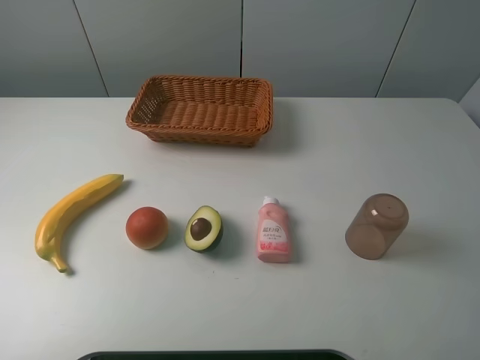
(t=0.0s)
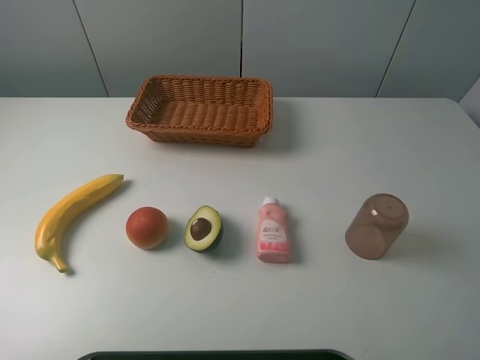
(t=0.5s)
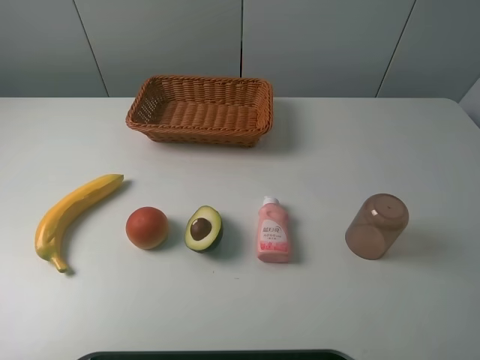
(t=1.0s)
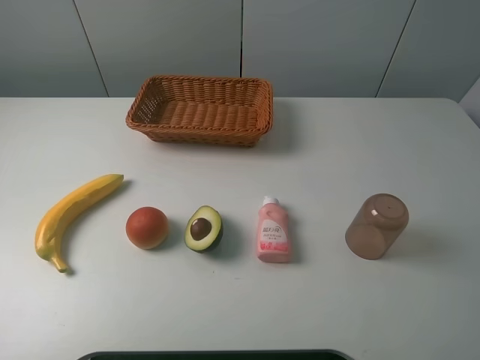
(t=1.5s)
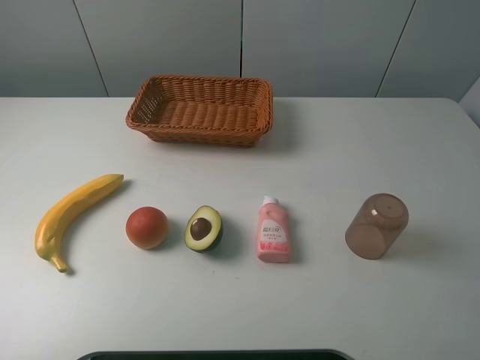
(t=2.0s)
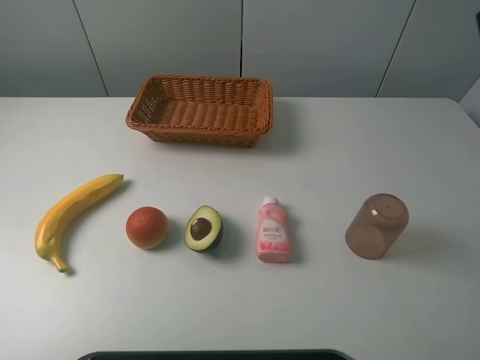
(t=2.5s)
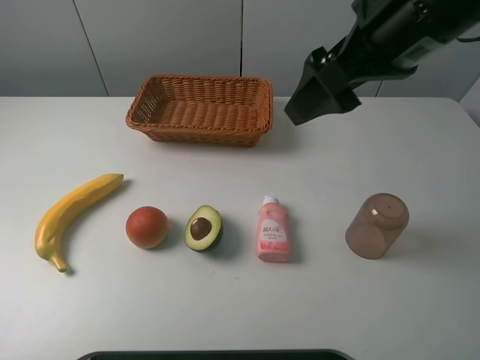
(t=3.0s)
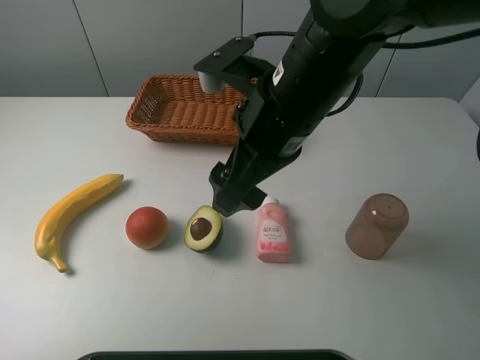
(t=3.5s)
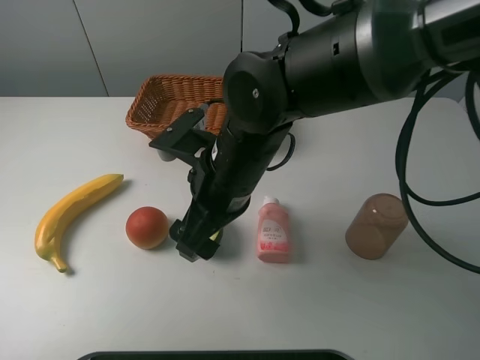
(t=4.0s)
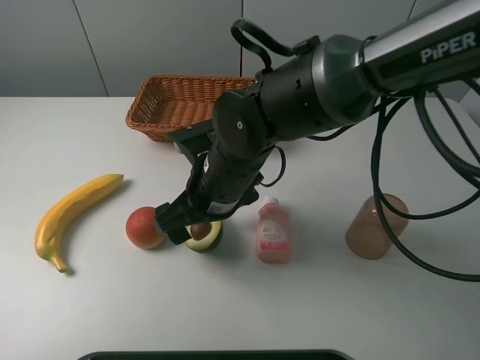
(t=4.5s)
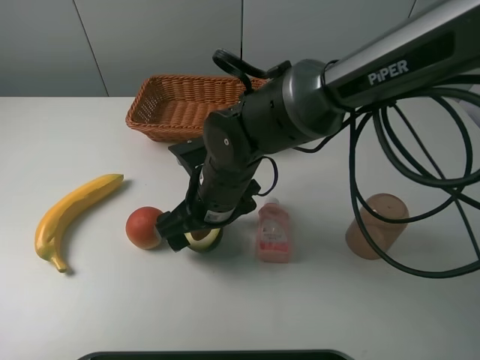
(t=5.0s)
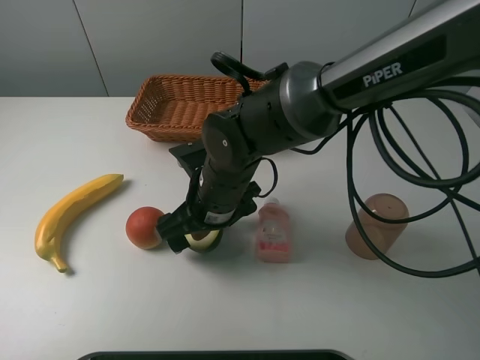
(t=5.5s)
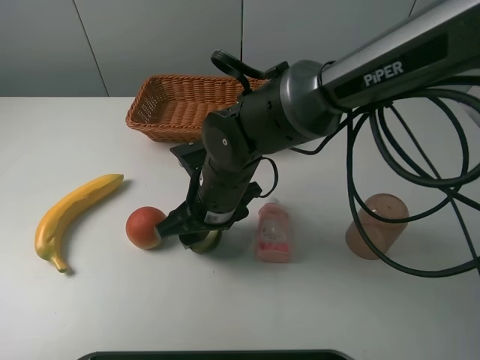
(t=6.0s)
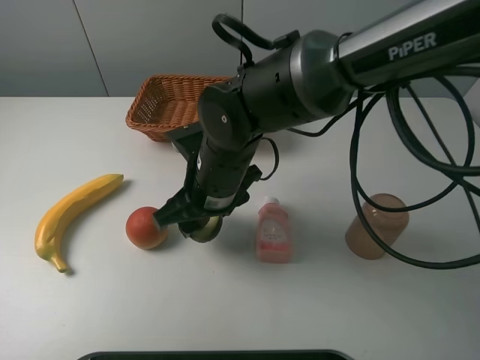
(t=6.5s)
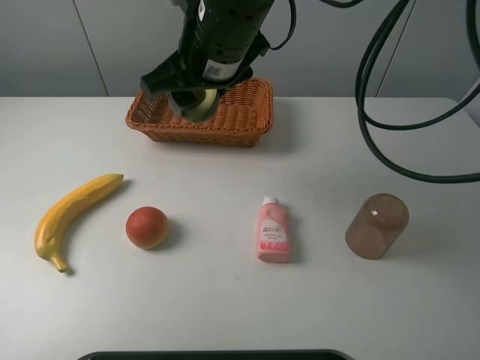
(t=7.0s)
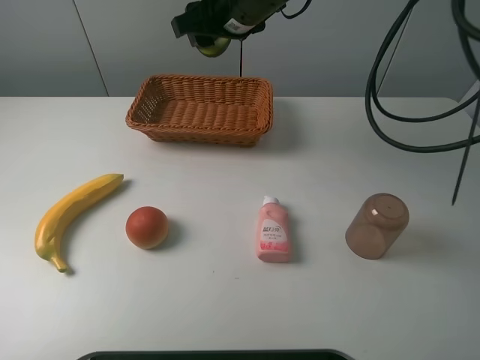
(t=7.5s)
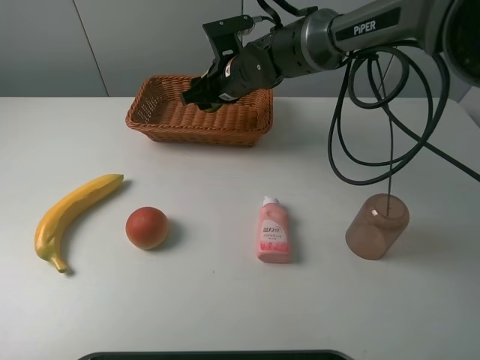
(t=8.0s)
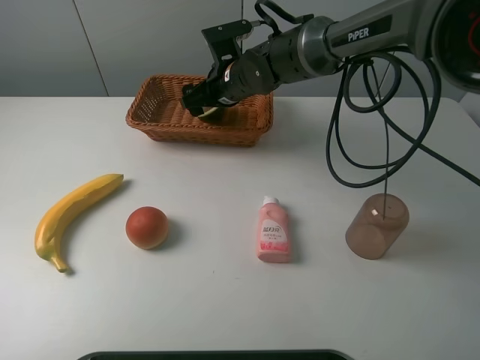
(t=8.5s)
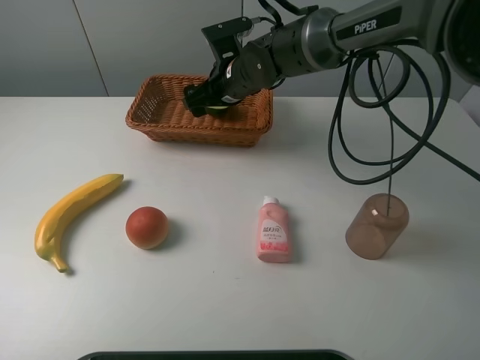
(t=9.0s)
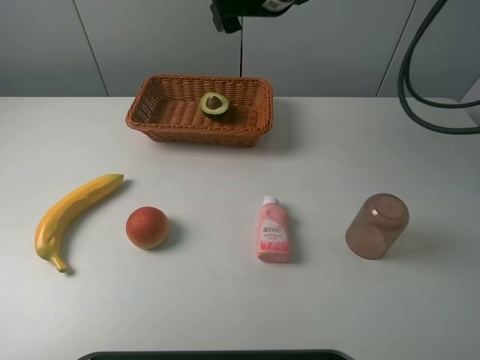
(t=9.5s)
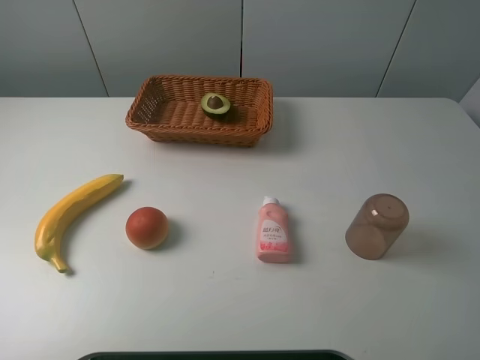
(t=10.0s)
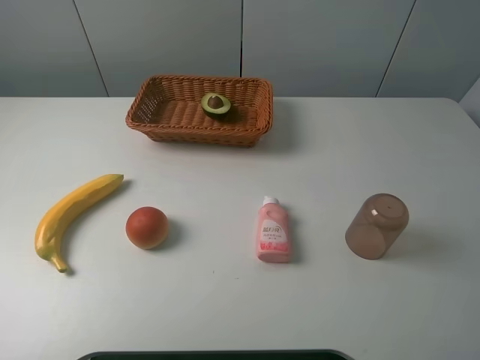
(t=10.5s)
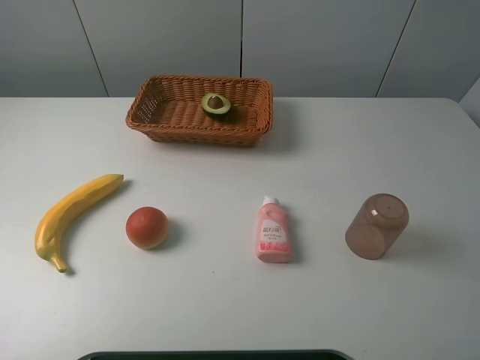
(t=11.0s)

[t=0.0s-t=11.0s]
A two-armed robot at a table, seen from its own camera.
Task of the whole recording: randomly pick up an item from the table and put it in the basket.
Step, t=0.0s to t=6.0s: Grasp the avocado with the right gripper.
Step, t=6.5s to t=9.0s: Place the avocado into the basket with the right gripper.
t=2.0s to t=3.5s: The right gripper is displaced forward and to the left by roughly 30 cm.
t=3.5s to t=5.5s: The right gripper shifts approximately 15 cm downward and to the left.
t=5.5s to t=7.5s: The right gripper is displaced upward and forward by approximately 20 cm, and closes its fingers.
t=7.5s to t=9.0s: The right gripper travels downward by about 15 cm, and opens.
t=9.0s to t=11.0s: The right gripper moves backward, upward and to the right, about 50 cm.

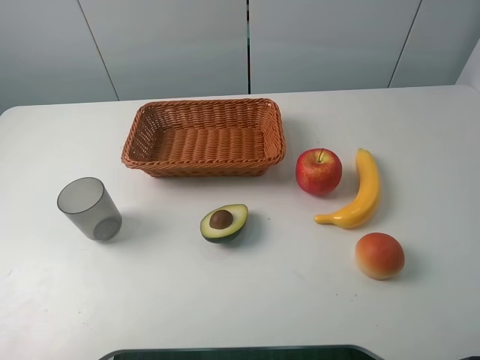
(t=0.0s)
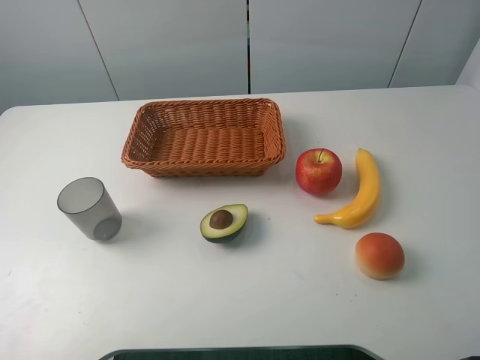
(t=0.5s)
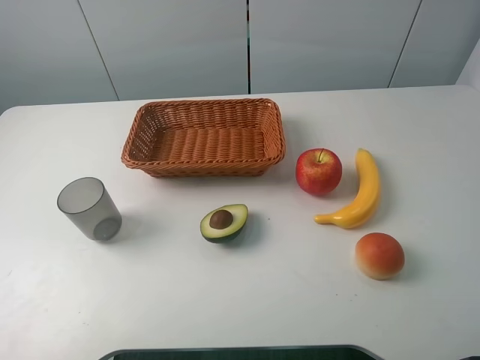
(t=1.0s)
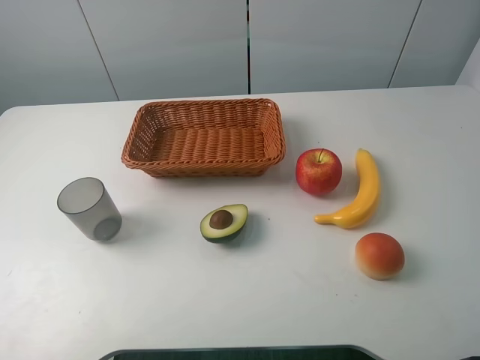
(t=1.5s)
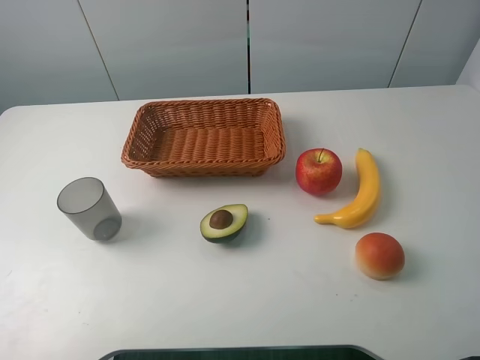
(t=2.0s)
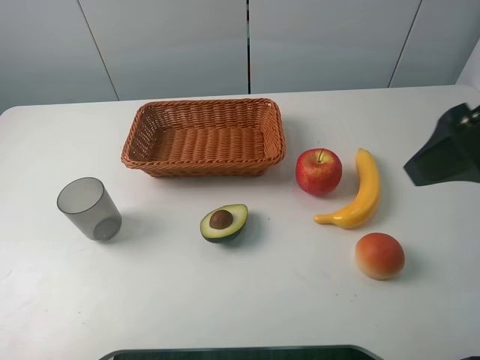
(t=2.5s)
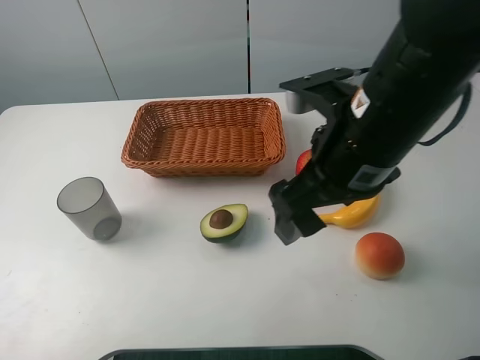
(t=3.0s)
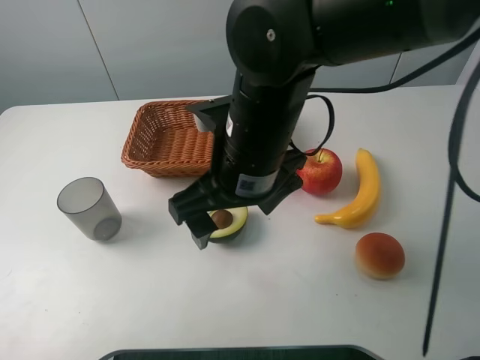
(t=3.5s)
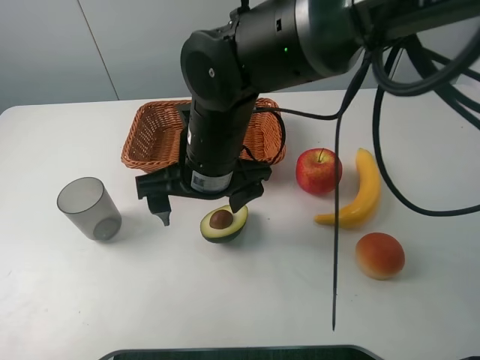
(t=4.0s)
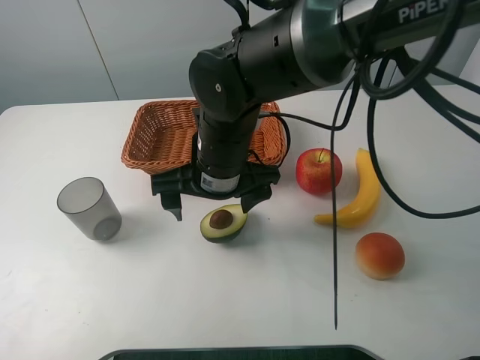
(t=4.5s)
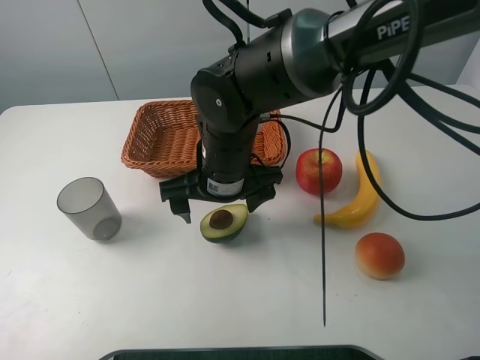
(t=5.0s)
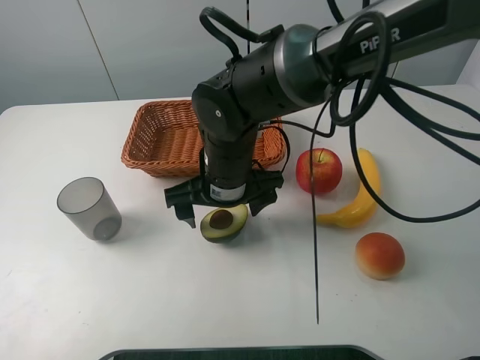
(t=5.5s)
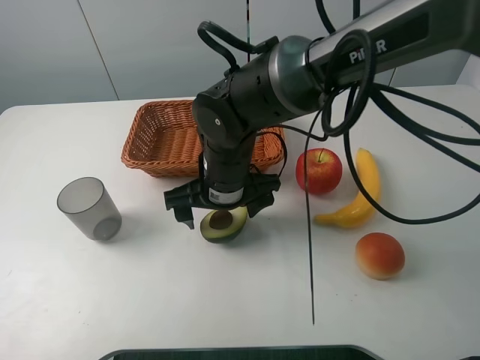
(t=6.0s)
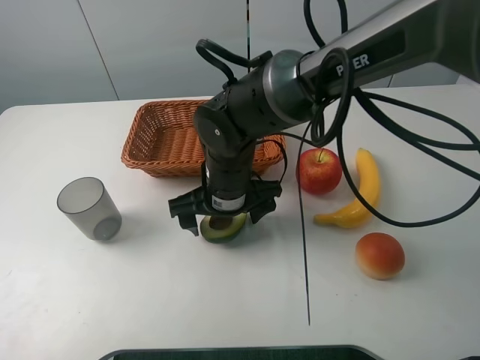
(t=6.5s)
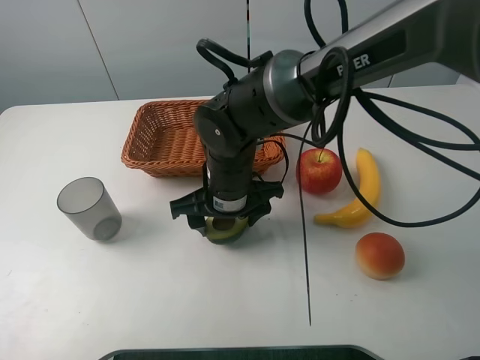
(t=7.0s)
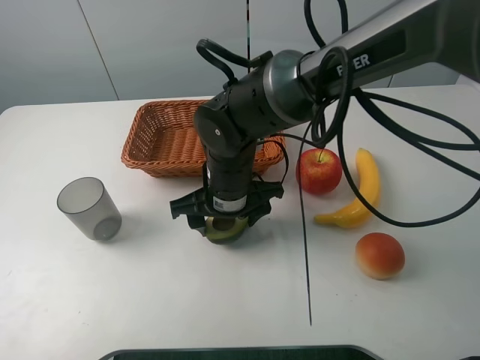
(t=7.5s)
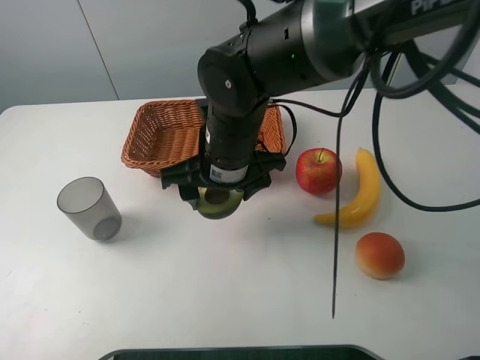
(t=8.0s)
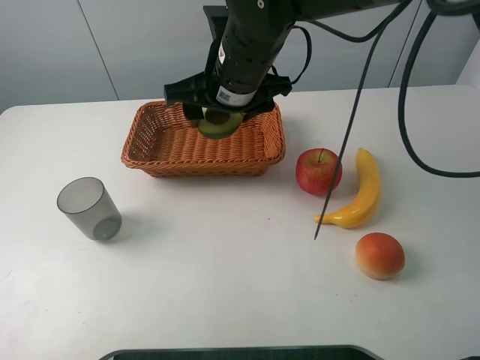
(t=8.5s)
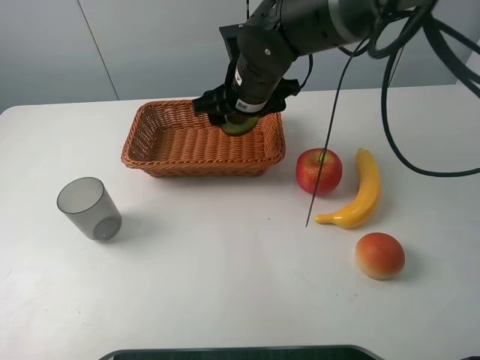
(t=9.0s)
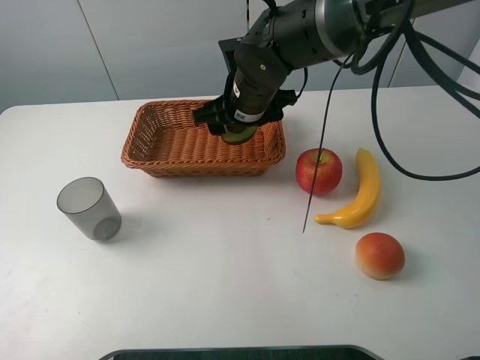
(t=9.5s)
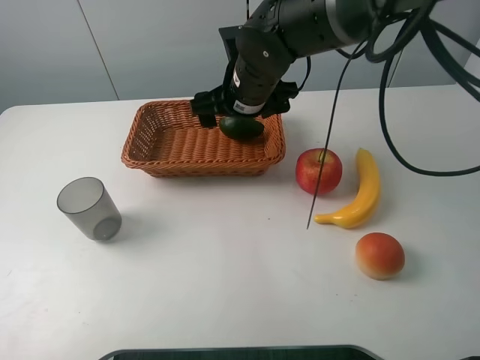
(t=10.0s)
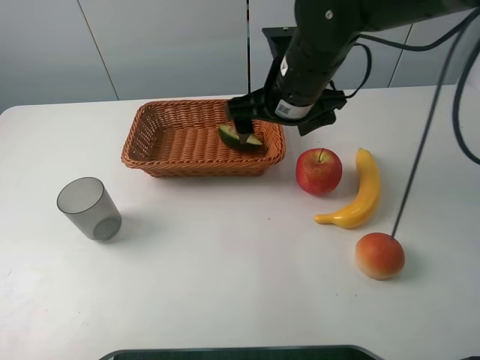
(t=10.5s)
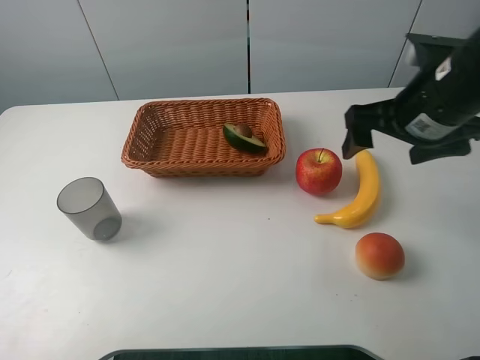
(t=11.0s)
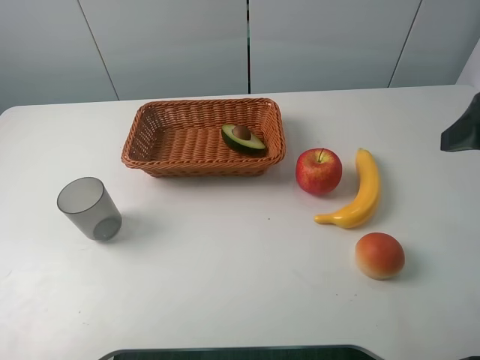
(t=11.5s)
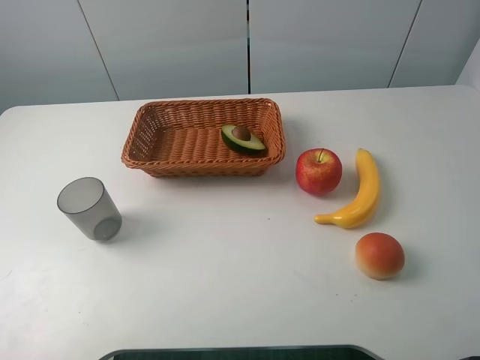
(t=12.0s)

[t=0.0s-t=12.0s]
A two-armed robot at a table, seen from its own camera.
Task of the whole recording: randomly pick up an item from the table and put it in the basket.
Step, t=0.0s to t=7.0s: Grasp the avocado with the right gripper.
Step, t=7.5s to t=10.0s: Place the avocado into the basket with the right gripper.
t=2.0s to t=4.0s: The right gripper shifts approximately 35 cm to the left and downward.
t=4.0s to t=6.0s: The right gripper moves about 5 cm.
t=6.0s to t=8.0s: The right gripper moves upward, about 5 cm, and closes.
t=8.0s to t=10.0s: The right gripper heads forward, covering approximately 10 cm, and opens up.
t=10.0s to t=12.0s: The right gripper shifts approximately 40 cm to the right, backward and upward.

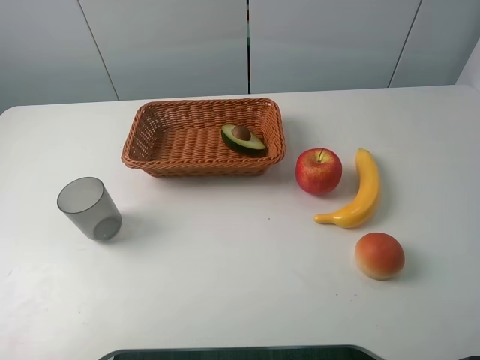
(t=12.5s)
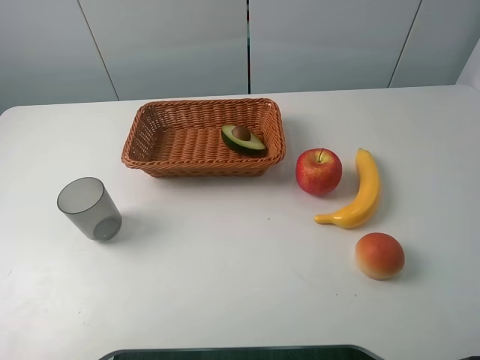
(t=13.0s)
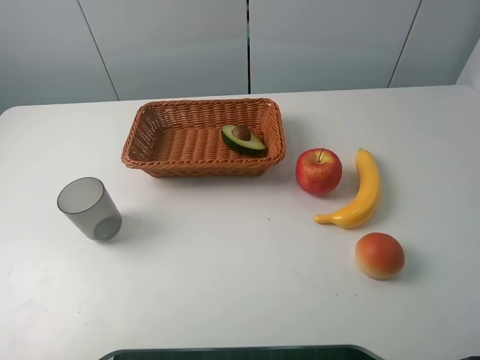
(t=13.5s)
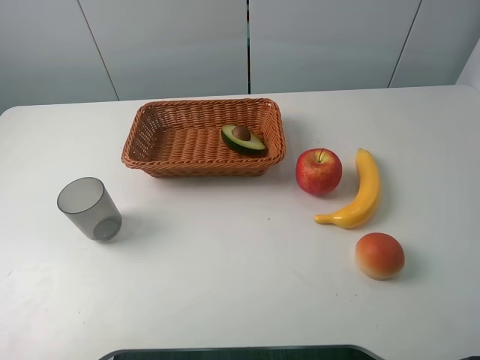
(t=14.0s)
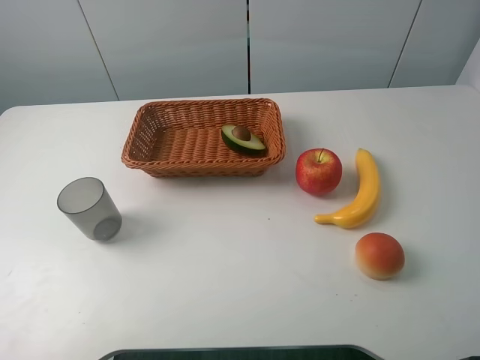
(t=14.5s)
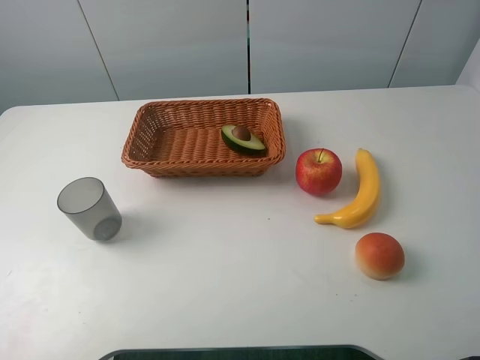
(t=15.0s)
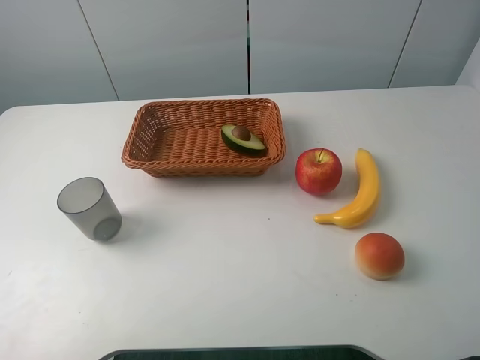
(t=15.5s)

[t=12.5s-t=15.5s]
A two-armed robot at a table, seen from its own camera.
Task of the whole recording: randomly pick up an item from the table and put it in the basket.
t=14.0s to t=15.5s: The two grippers keep their place.
